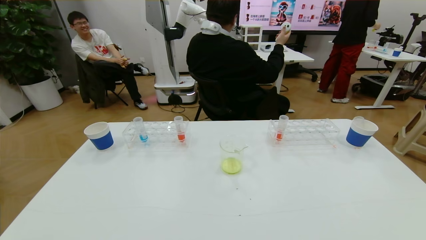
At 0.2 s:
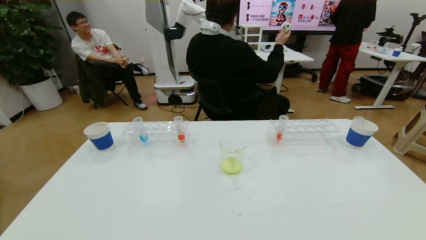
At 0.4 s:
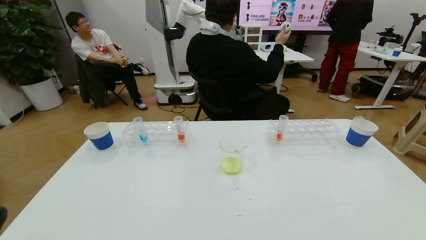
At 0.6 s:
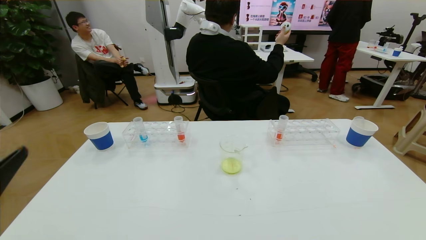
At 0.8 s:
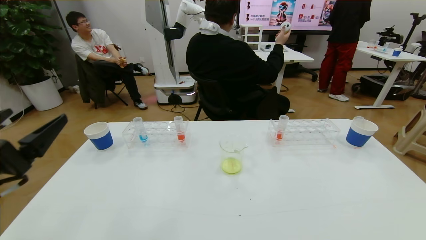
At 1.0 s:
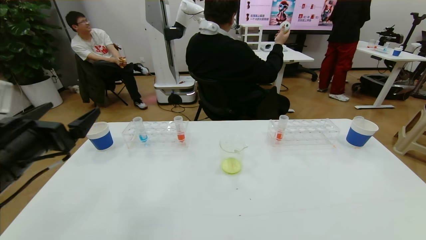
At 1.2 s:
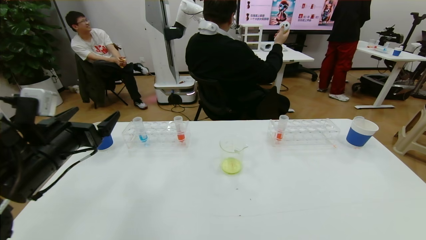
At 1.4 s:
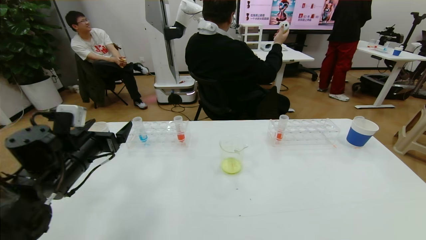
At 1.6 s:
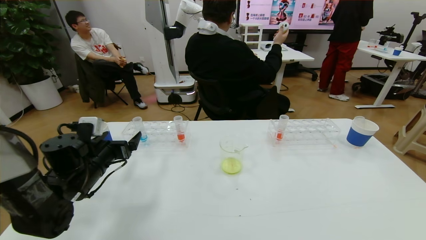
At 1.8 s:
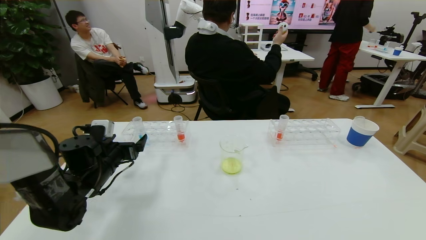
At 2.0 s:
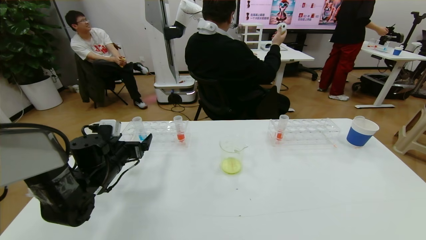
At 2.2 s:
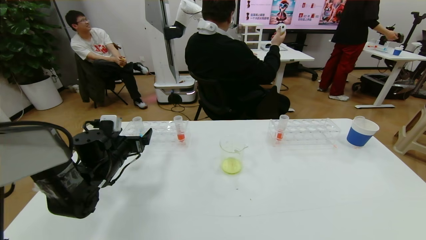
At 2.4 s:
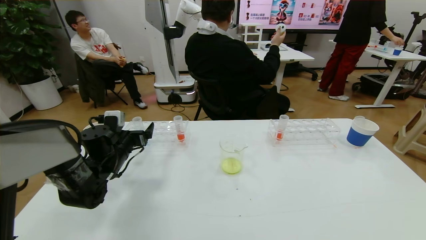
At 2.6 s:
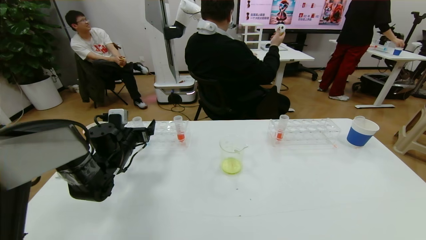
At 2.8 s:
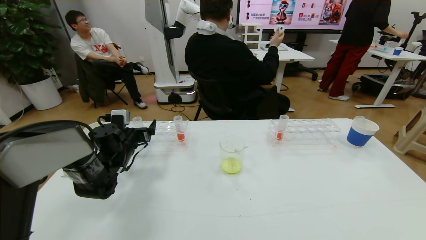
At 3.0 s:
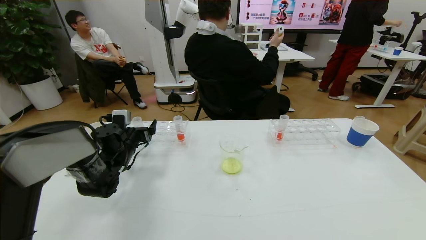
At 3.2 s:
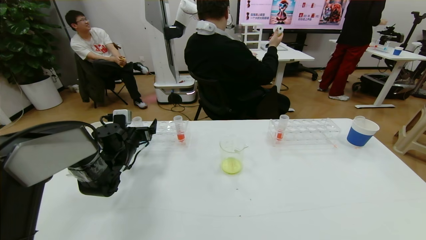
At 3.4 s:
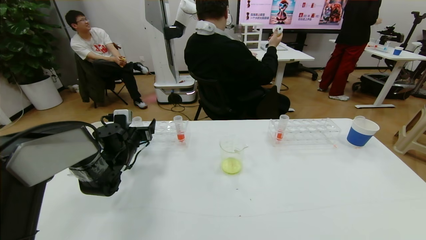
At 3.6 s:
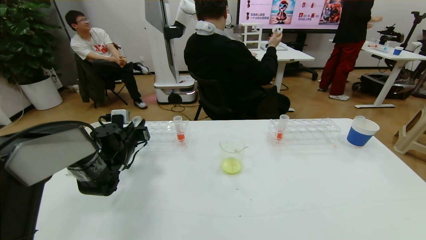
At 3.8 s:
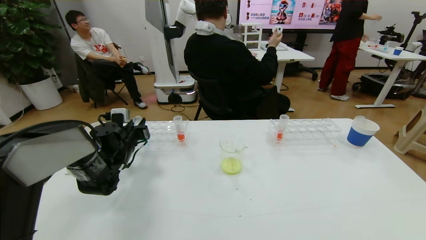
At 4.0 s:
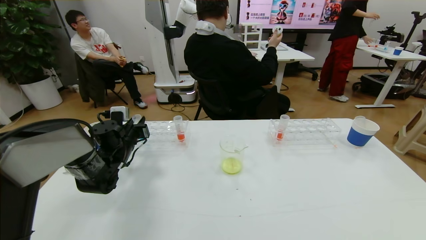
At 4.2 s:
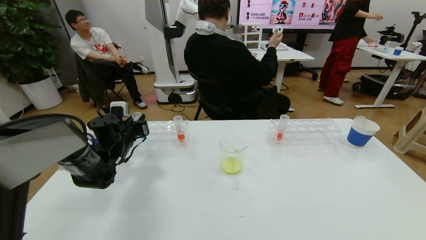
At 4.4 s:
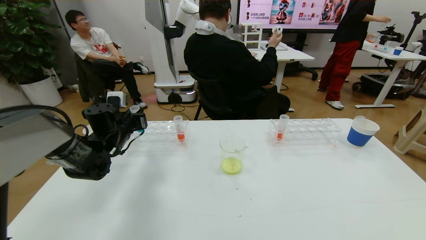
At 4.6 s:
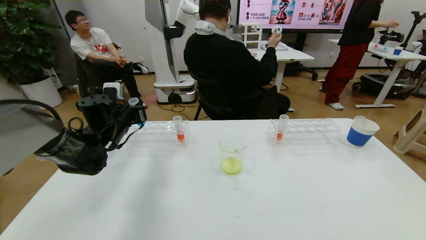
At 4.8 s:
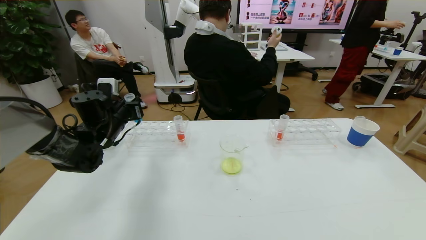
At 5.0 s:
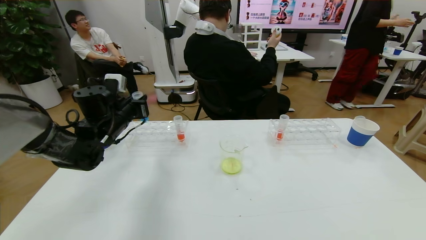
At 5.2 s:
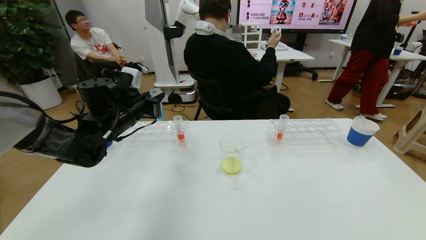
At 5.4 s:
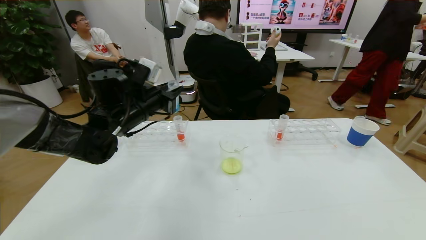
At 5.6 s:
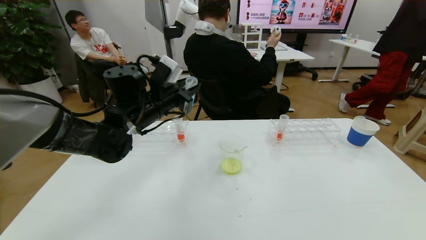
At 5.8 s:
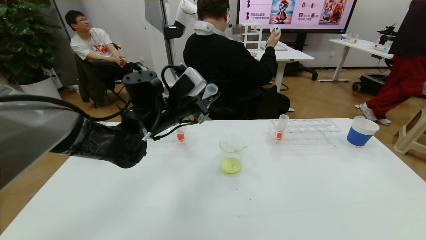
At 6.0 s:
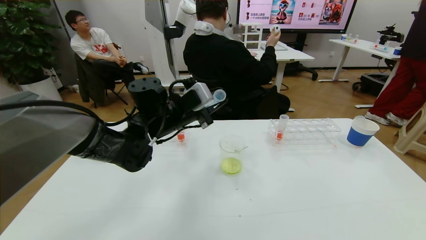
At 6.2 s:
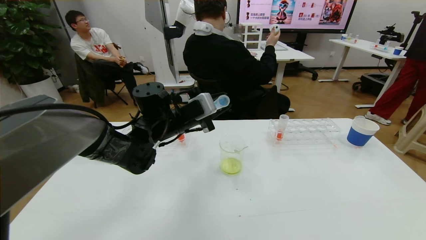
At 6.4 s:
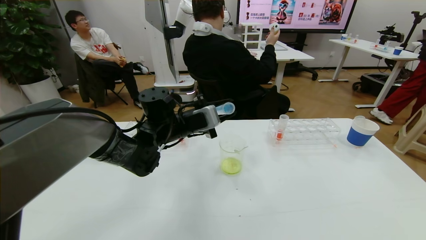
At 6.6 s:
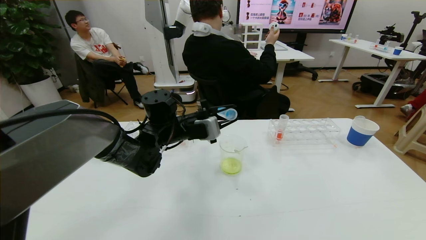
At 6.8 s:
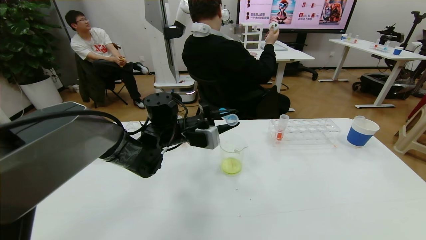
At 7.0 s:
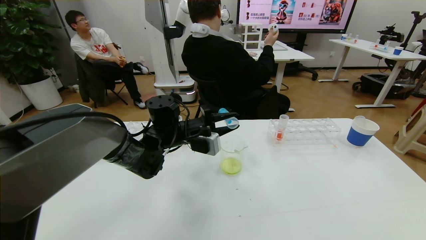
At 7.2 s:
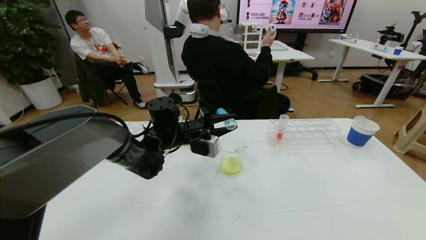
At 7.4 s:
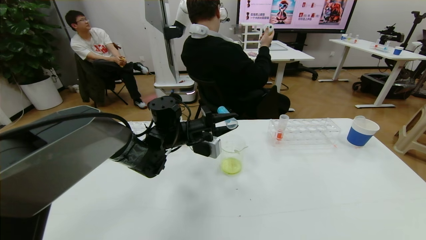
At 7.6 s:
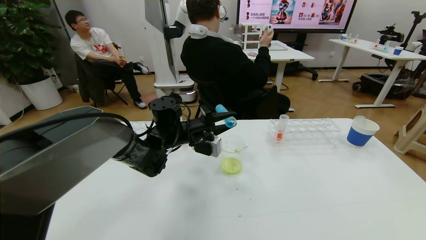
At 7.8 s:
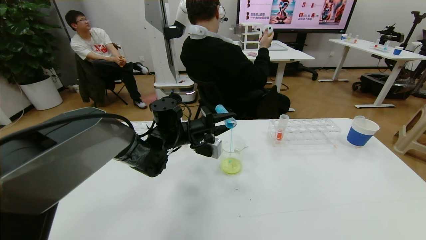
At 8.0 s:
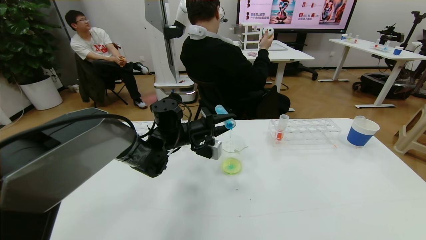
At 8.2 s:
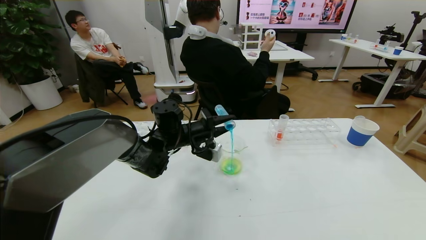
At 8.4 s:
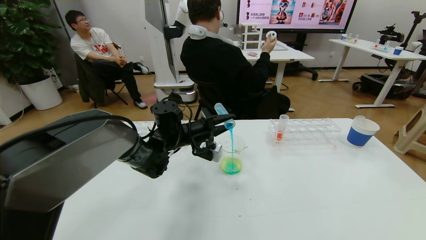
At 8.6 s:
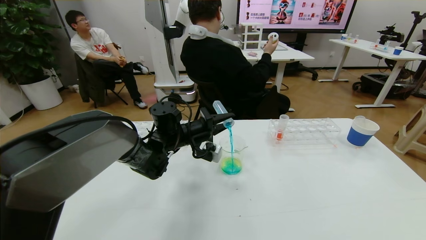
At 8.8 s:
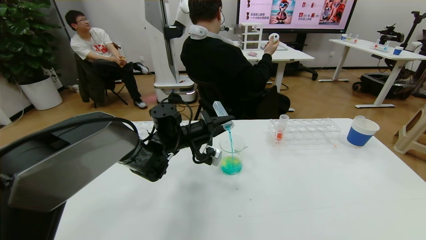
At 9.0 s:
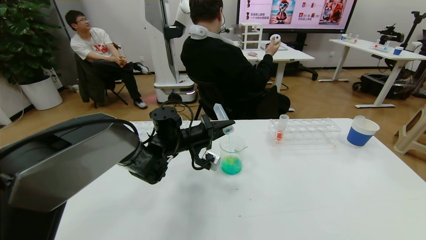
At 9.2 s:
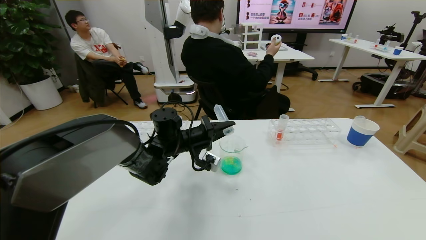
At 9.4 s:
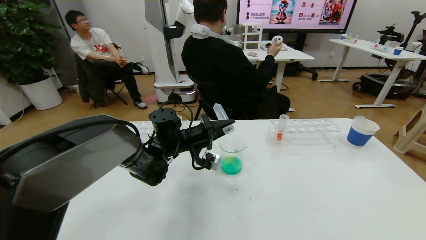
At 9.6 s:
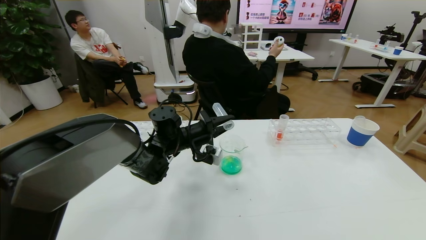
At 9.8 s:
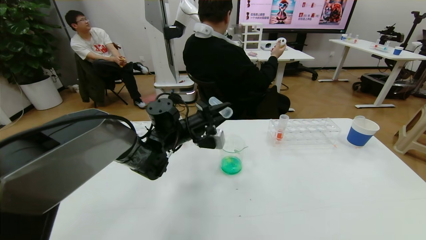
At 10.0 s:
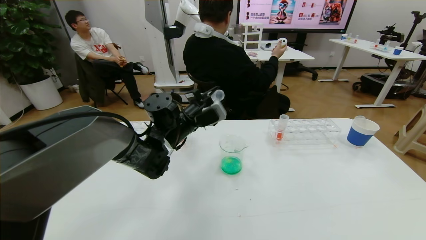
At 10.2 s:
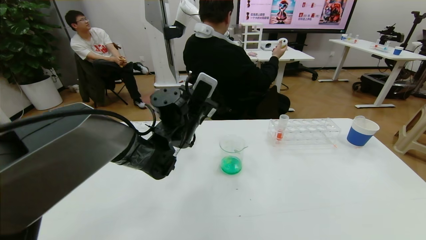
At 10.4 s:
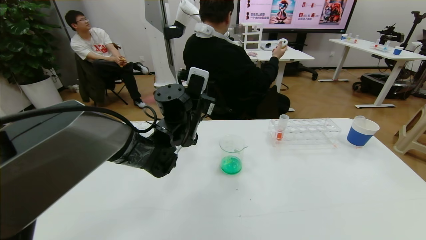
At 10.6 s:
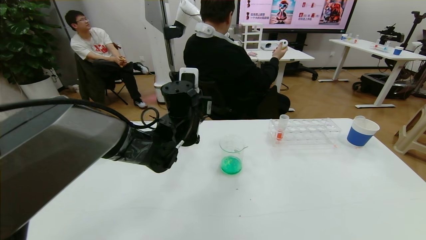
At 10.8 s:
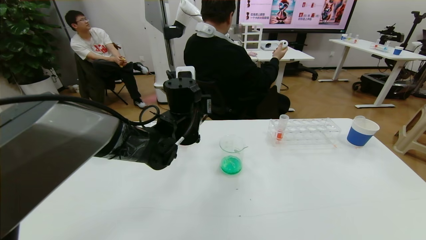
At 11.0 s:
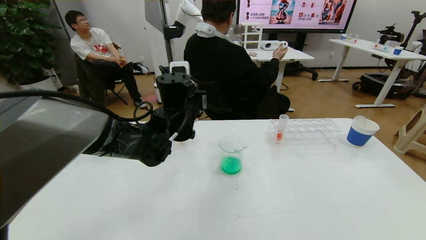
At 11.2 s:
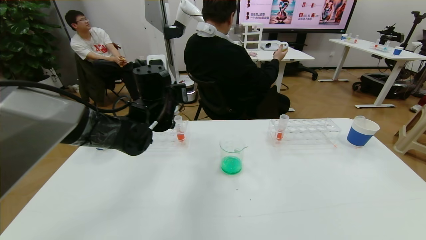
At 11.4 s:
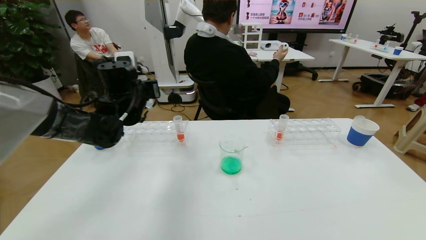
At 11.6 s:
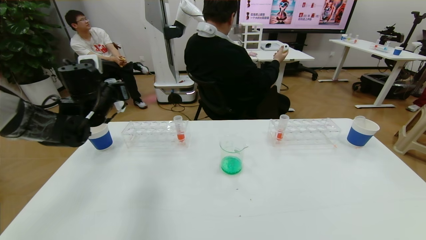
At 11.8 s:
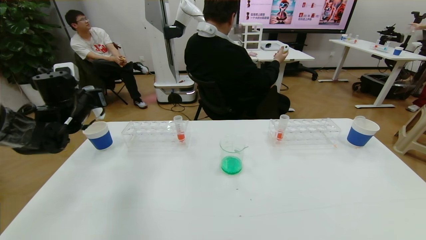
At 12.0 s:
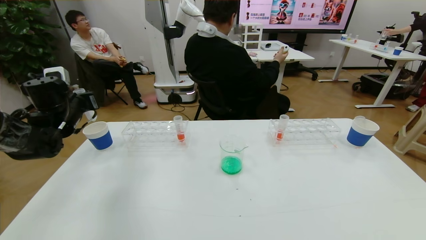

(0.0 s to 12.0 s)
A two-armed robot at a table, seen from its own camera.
Task of the whole recording: pick up the test tube with yellow pigment and the test tube with blue pigment by grippers and pour them into the beaker.
0.0 s - 1.6 s: The left gripper shifts about 35 cm forward.
1.6 s - 3.0 s: The left gripper is displaced forward by roughly 10 cm.
3.0 s - 4.4 s: The left gripper moves upward, approximately 5 cm, and closes its fingers.
4.4 s - 6.0 s: The left gripper travels to the right and upward by about 20 cm.
6.0 s - 7.6 s: The left gripper goes about 5 cm downward.
9.0 s - 10.4 s: The left gripper is displaced upward by roughly 10 cm.
10.4 s - 12.0 s: The left gripper is displaced to the left by approximately 30 cm.

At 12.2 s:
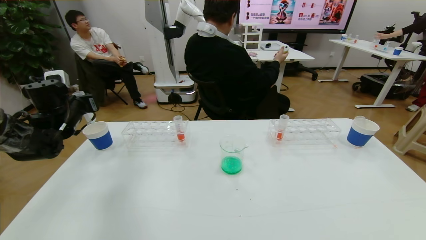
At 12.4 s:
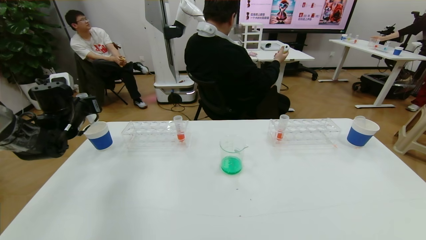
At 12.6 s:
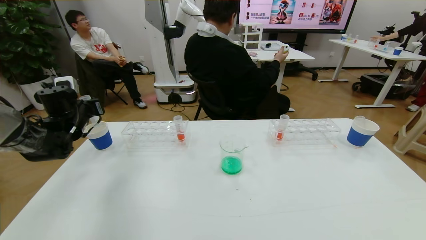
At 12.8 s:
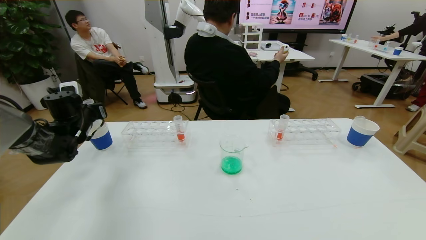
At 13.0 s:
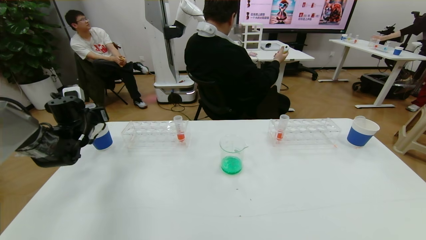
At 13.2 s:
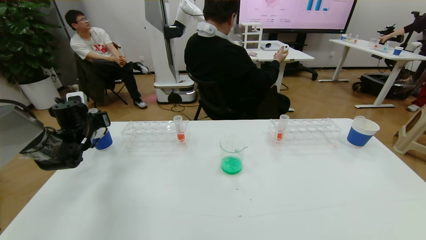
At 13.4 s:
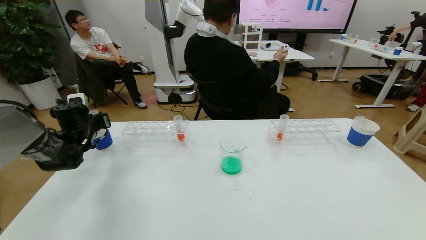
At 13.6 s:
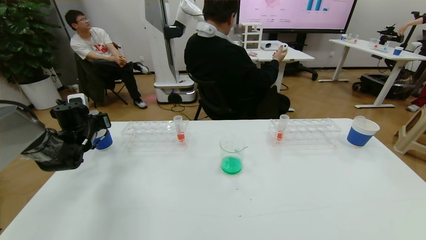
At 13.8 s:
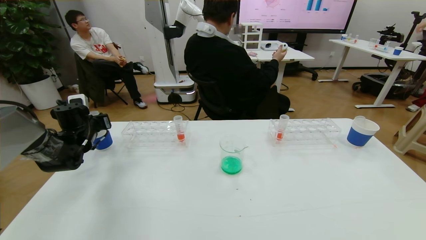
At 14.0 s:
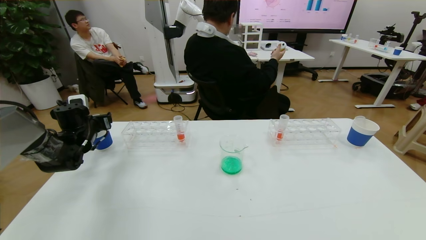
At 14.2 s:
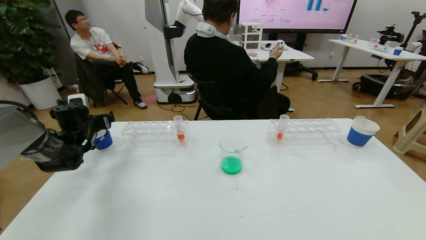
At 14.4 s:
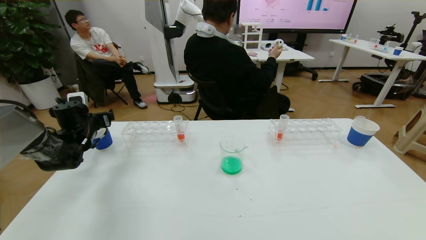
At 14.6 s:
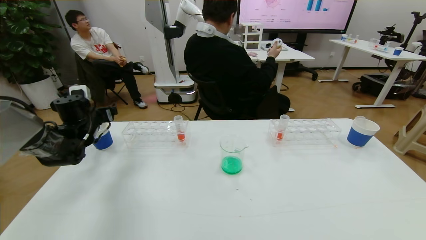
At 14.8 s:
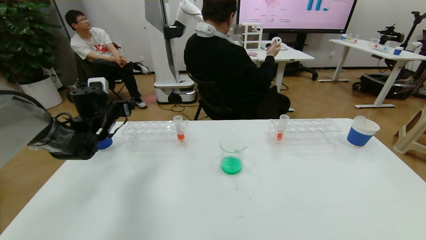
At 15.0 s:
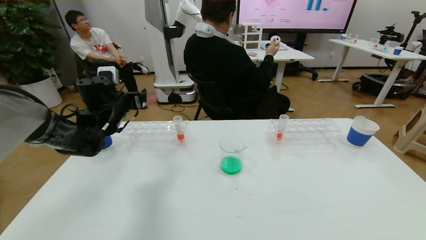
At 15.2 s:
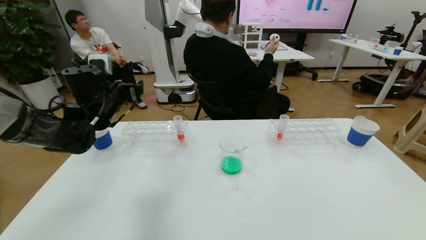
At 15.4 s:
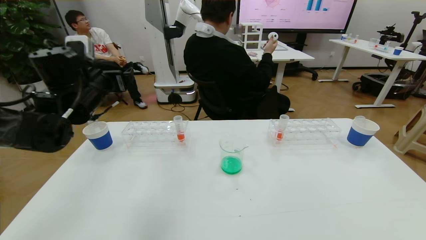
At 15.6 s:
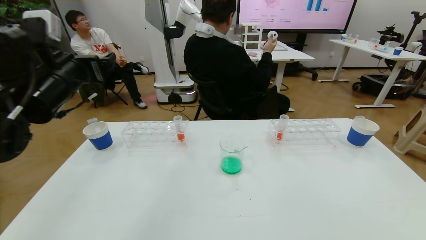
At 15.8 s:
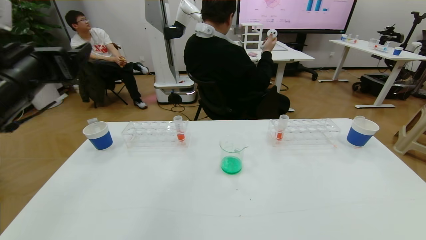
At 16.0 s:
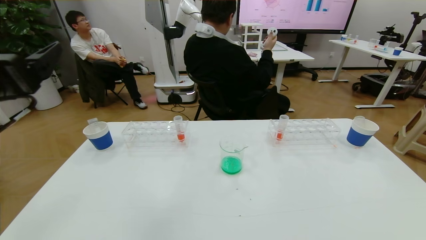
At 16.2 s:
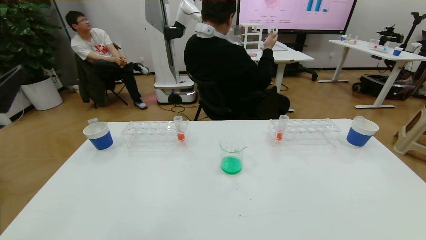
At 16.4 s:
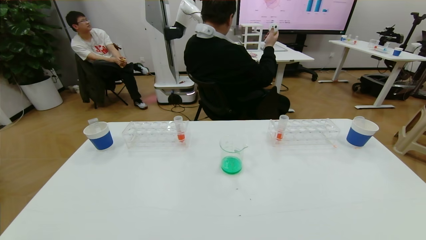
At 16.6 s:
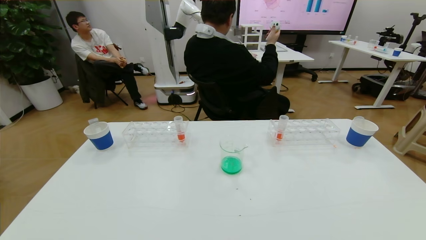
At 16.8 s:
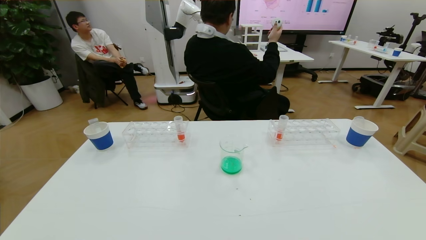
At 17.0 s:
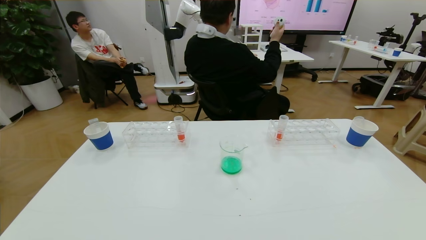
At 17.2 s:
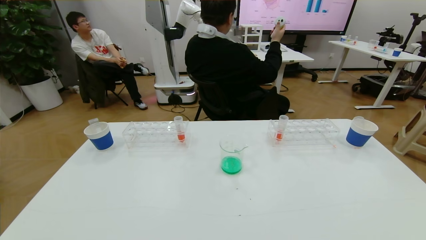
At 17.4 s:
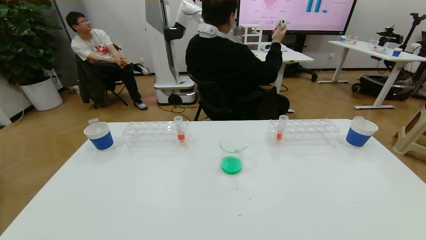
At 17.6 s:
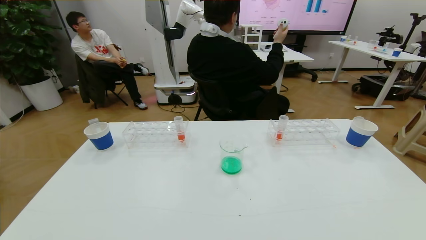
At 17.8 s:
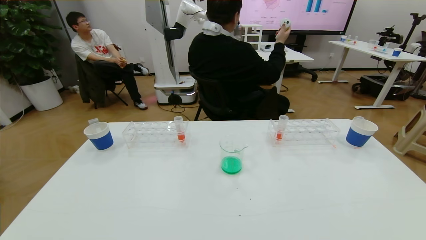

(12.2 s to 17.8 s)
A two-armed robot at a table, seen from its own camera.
Task of the whole recording: pick up the test tube with yellow pigment and the test tube with blue pigment by grippers and pour them into the beaker.
Step, 12.2 s - 17.8 s: Pour the blue reagent into the graduated cylinder and place the test tube into the paper cup.
12.2 s - 13.6 s: The left gripper is displaced downward by about 5 cm.
13.6 s - 15.0 s: The left gripper is displaced to the right and upward by some 15 cm, and opens.
15.0 s - 16.4 s: The left gripper heads backward, covering about 35 cm.
16.4 s - 17.8 s: The left gripper is displaced downward by some 15 cm.
